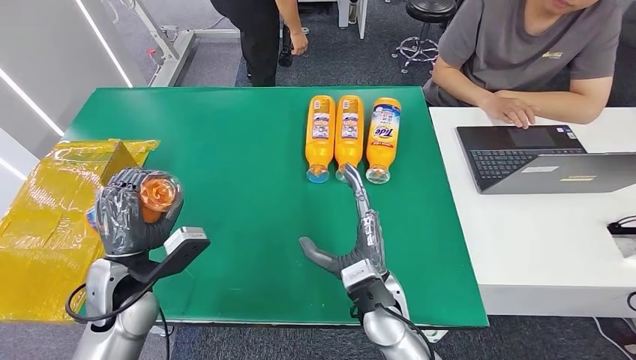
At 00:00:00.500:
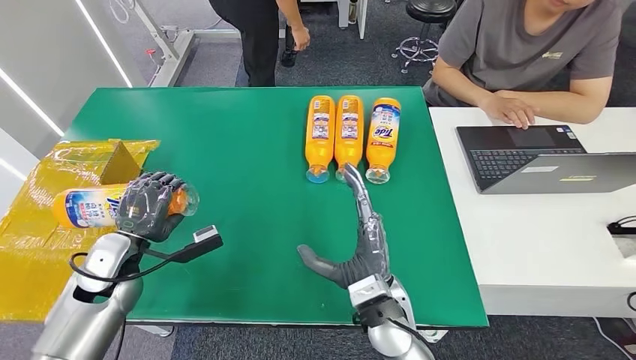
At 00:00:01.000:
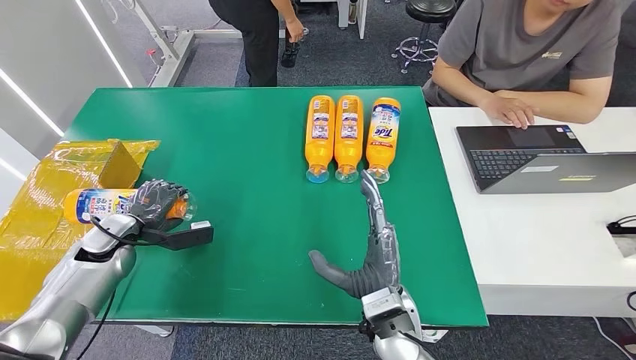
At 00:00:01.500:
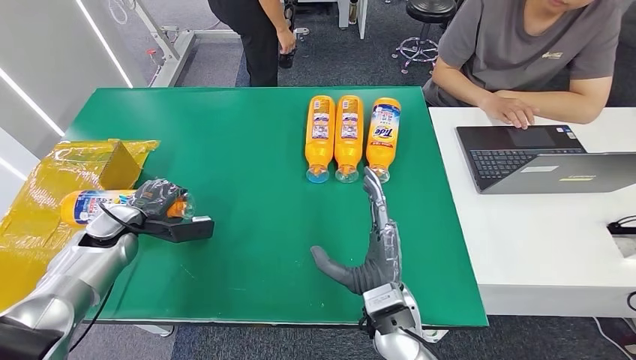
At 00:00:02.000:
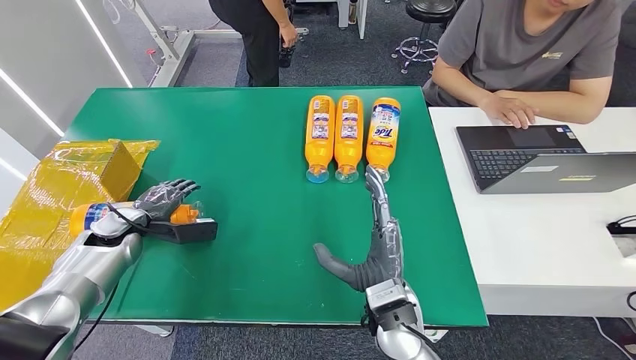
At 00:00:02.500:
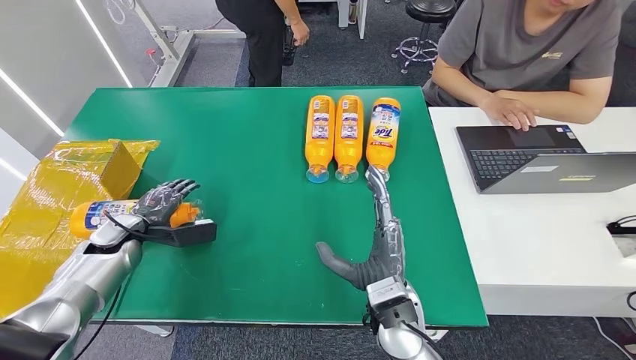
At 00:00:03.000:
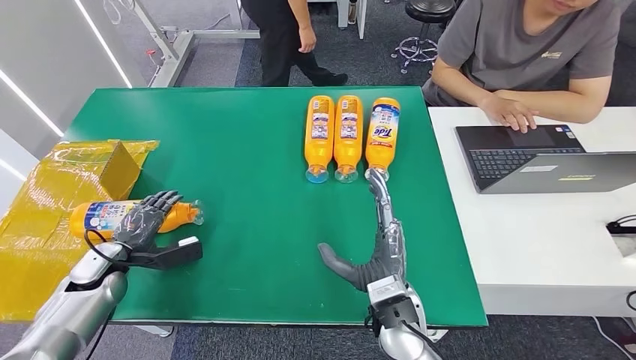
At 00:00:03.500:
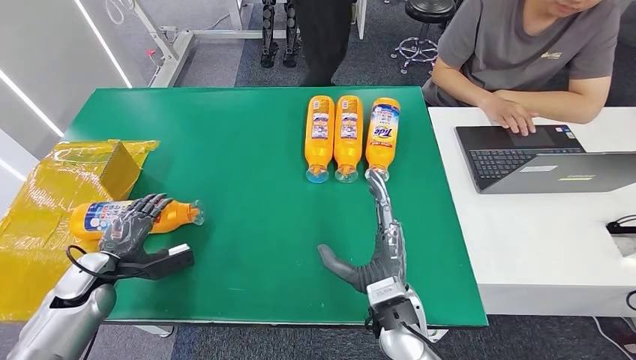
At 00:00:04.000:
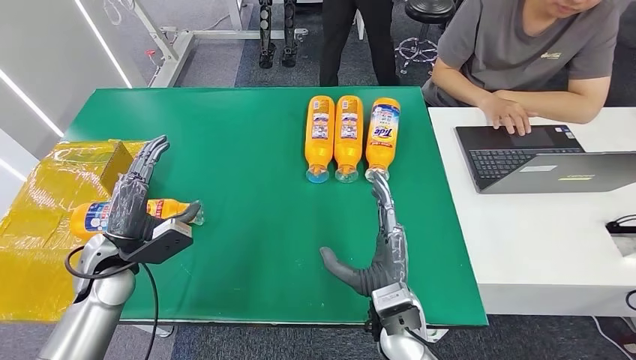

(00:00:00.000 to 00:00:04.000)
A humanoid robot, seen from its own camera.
Step, 00:00:00.000 - 00:00:04.000: Turn the bottle to the front side.
00:00:00.000 - 00:00:02.000: The left hand heads forward, to the left and downward, covering roughly 15 cm.
00:00:02.000 - 00:00:04.000: The left hand goes roughly 10 cm backward and to the right.
